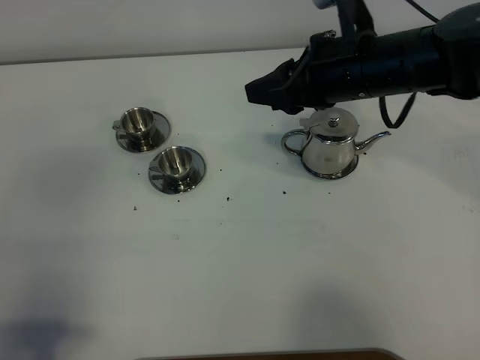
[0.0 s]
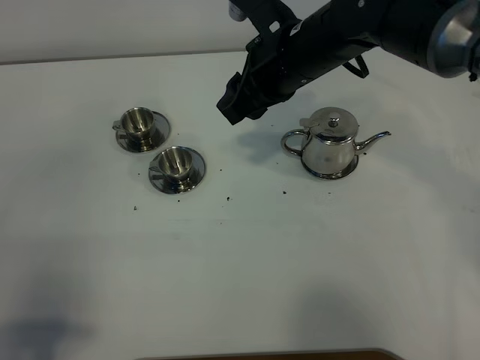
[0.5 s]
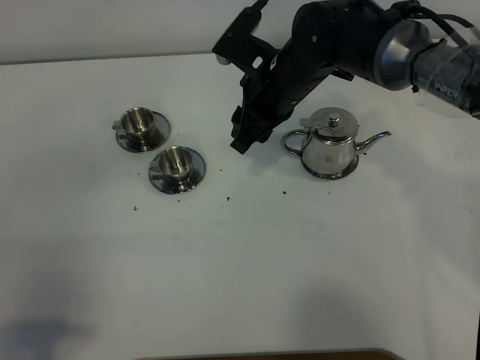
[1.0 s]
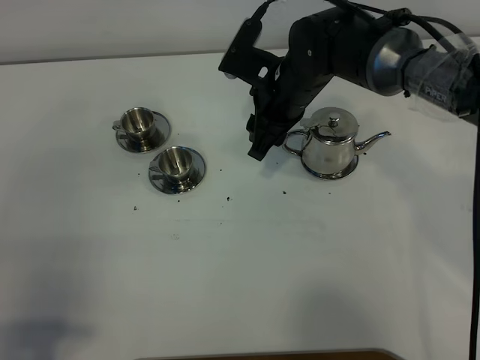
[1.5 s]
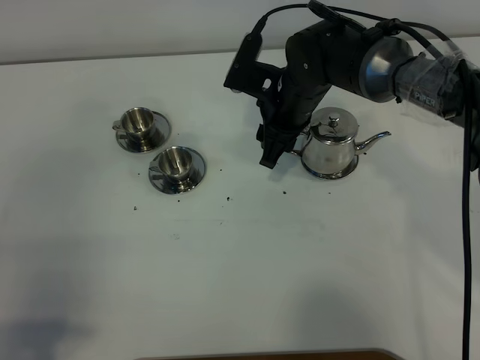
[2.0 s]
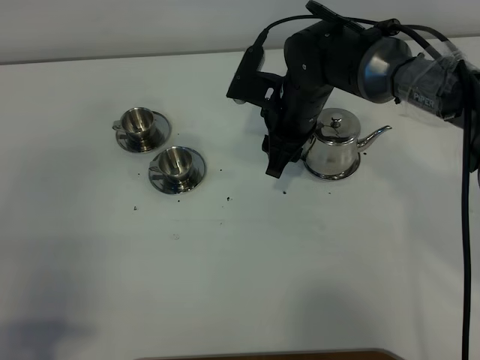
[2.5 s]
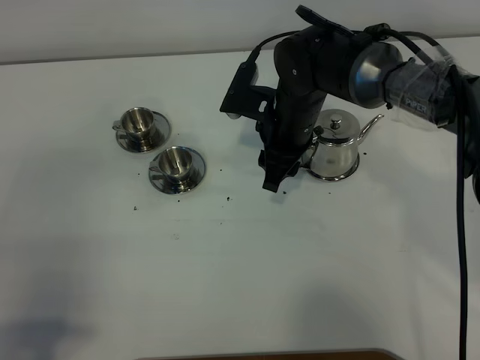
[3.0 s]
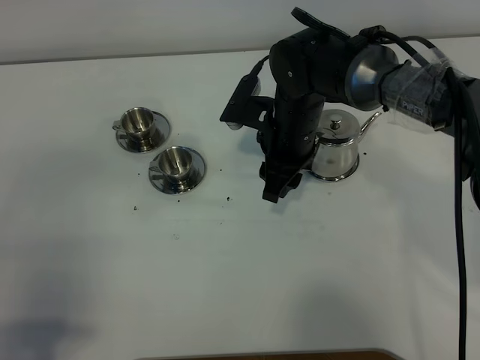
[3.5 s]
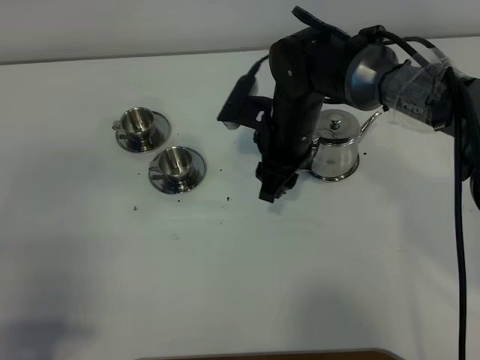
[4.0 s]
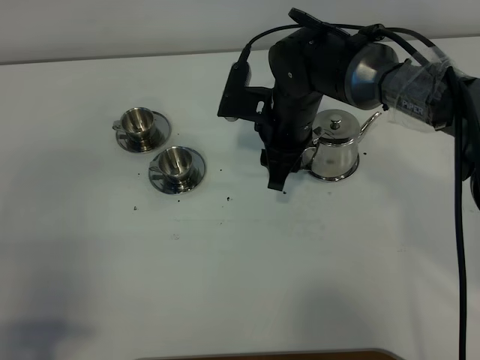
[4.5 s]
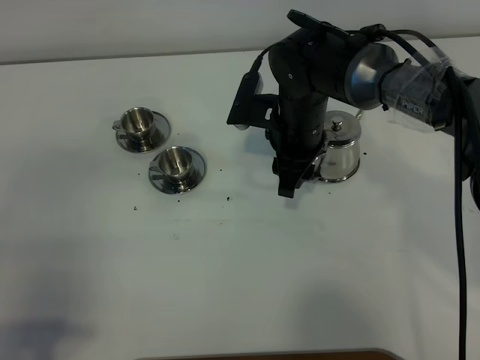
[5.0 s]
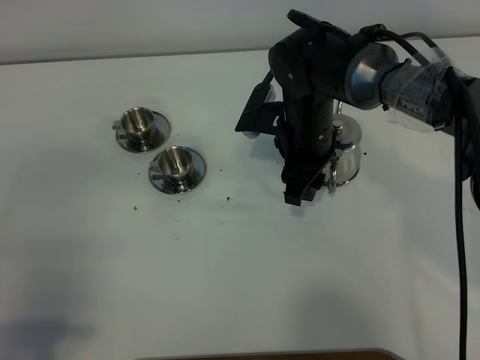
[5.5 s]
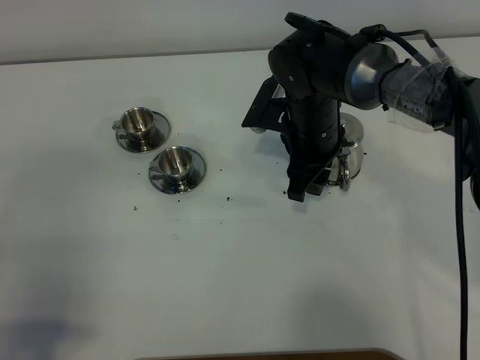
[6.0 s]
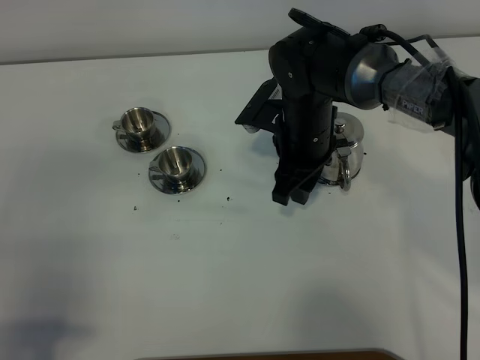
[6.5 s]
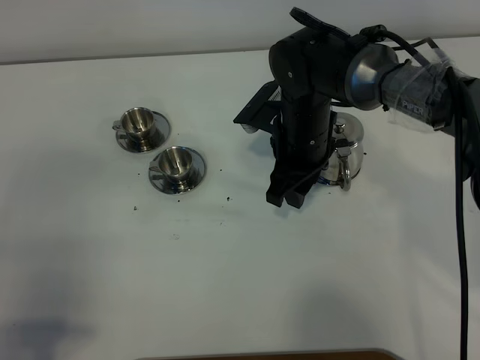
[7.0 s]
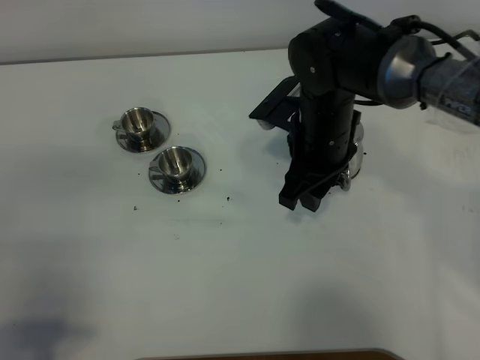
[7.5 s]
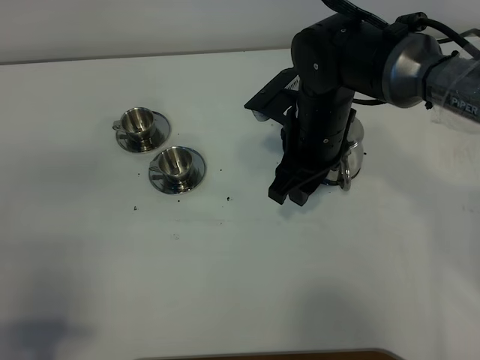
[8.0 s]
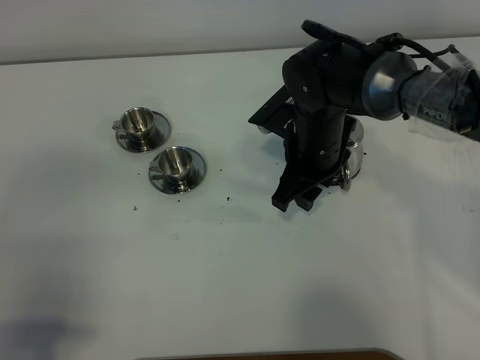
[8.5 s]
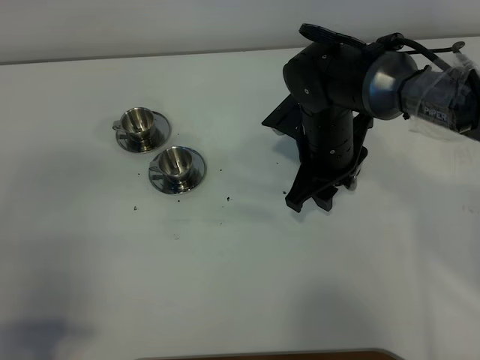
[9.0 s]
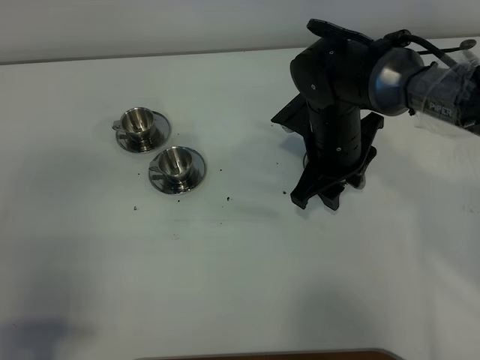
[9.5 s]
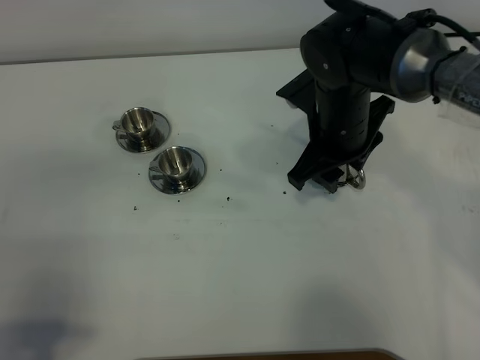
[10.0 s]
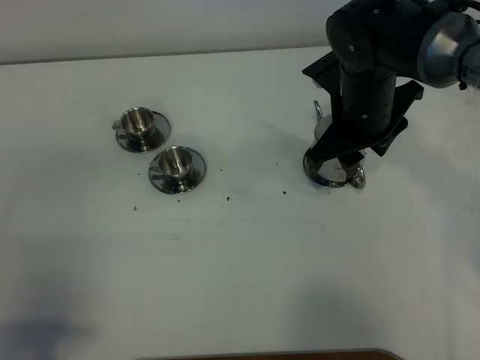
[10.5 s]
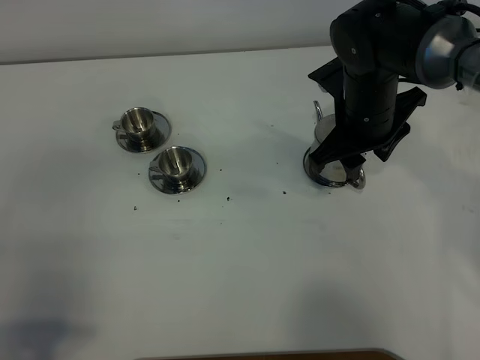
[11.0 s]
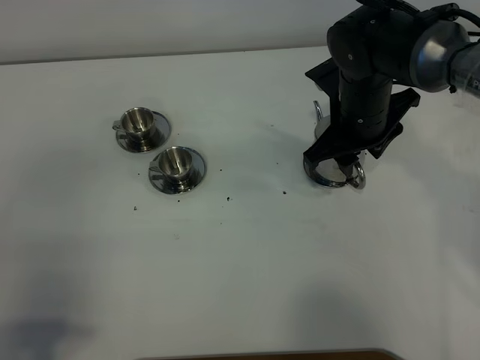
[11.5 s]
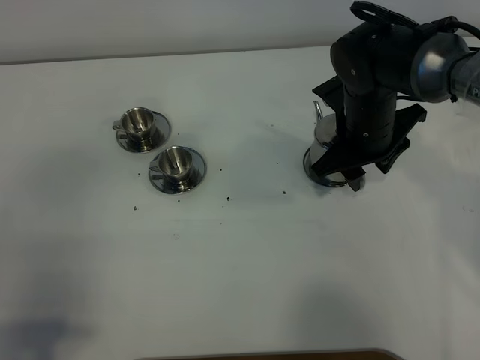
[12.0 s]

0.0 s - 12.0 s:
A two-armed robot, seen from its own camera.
Task of the whole recording: grasp the stainless steel teapot and pour the tea into the two stainless steel teacups one by one, put the stainless steel teapot back in its original place.
0.0 s - 2.0 s: The right gripper moves downward, to the left and forward, roughly 15 cm.
4.0 s - 6.0 s: The grippers move only a little.
6.0 s - 8.0 s: The grippers move only a little.
8.0 s - 10.0 s: The grippers make only small movements.
10.0 s - 12.0 s: There are only small adjustments of the grippers.

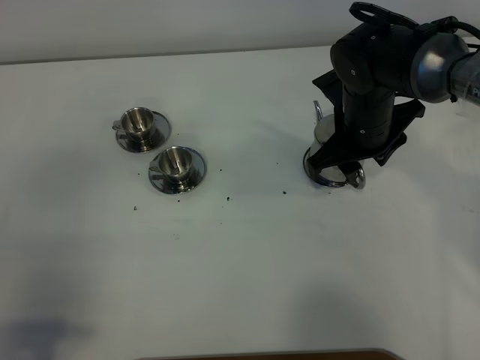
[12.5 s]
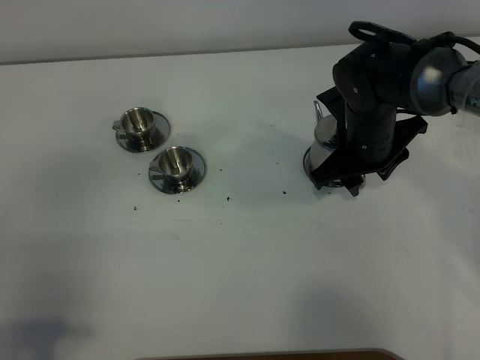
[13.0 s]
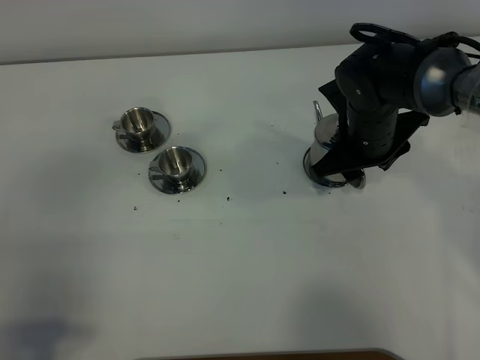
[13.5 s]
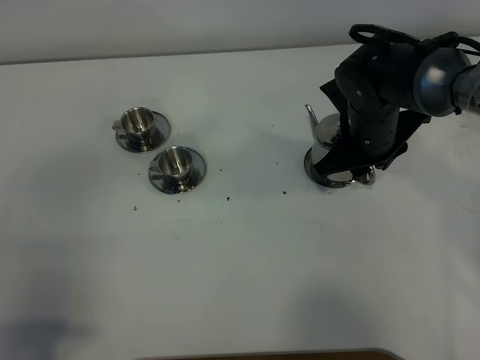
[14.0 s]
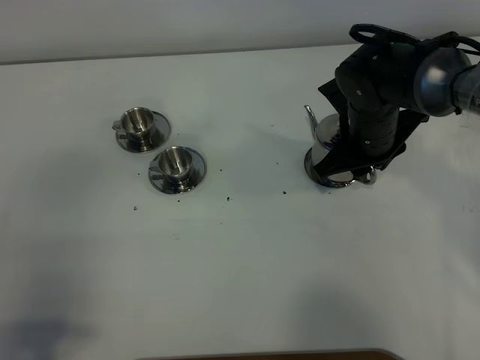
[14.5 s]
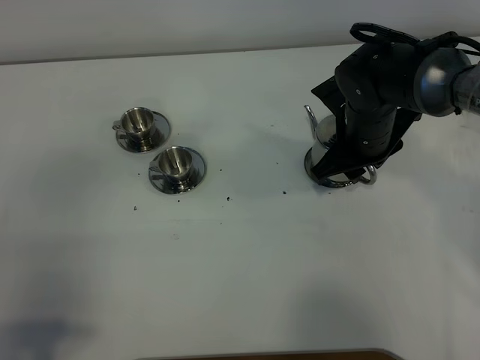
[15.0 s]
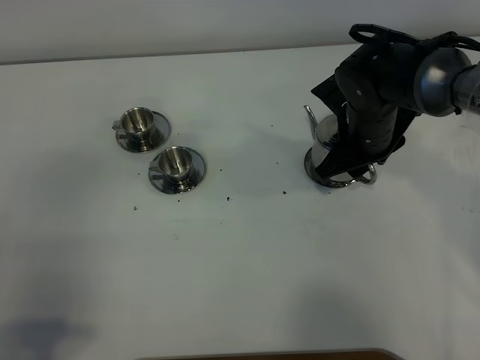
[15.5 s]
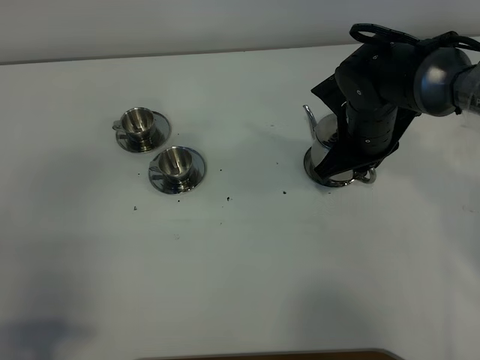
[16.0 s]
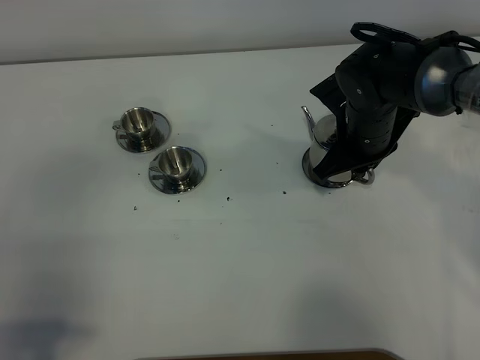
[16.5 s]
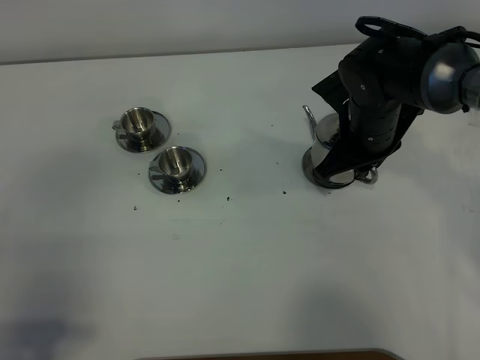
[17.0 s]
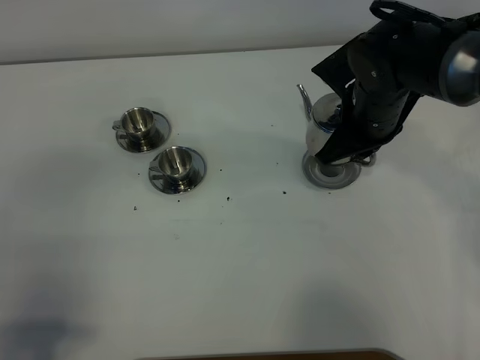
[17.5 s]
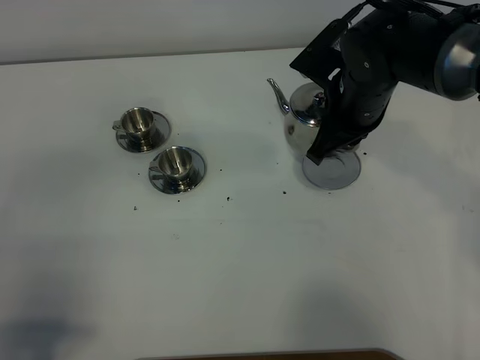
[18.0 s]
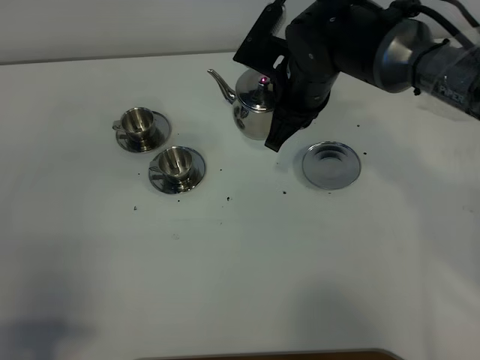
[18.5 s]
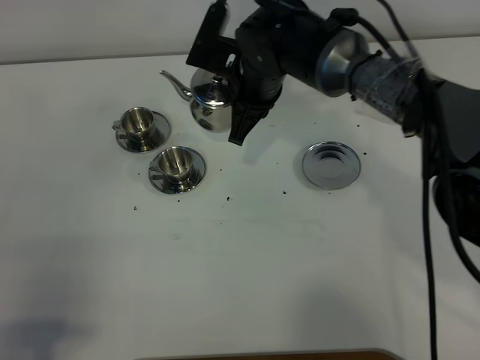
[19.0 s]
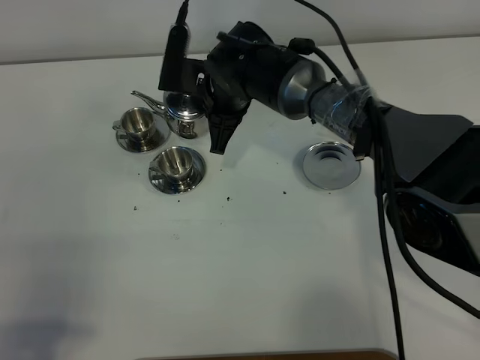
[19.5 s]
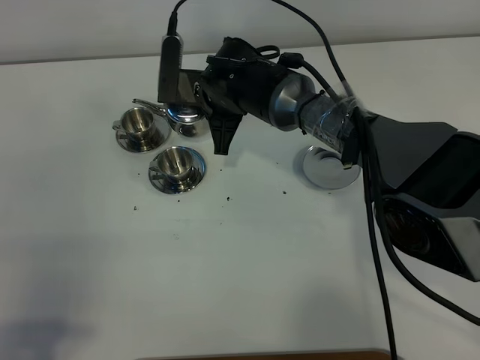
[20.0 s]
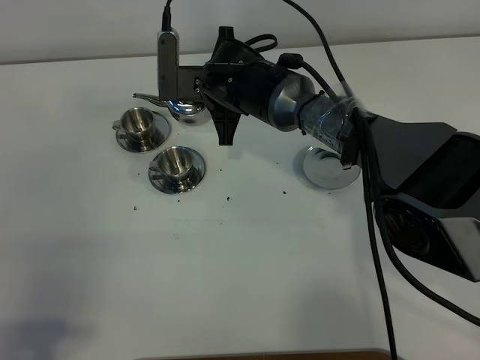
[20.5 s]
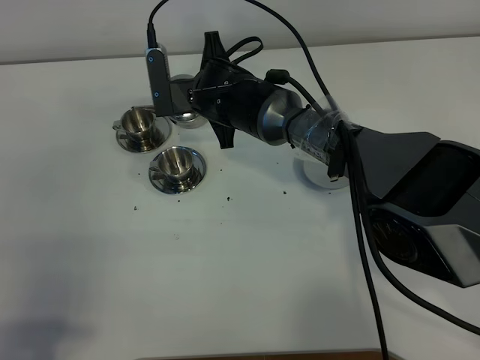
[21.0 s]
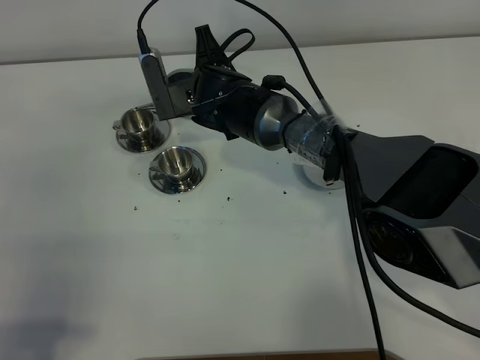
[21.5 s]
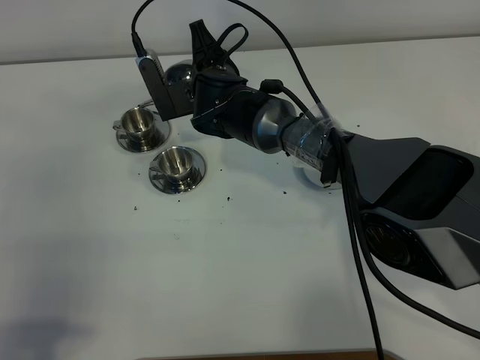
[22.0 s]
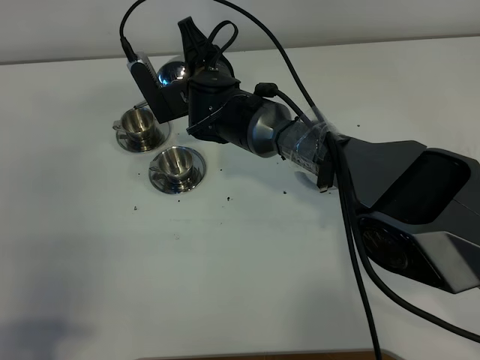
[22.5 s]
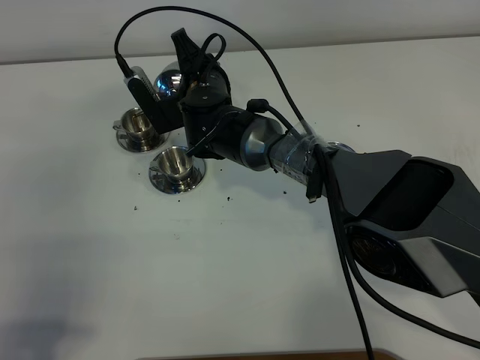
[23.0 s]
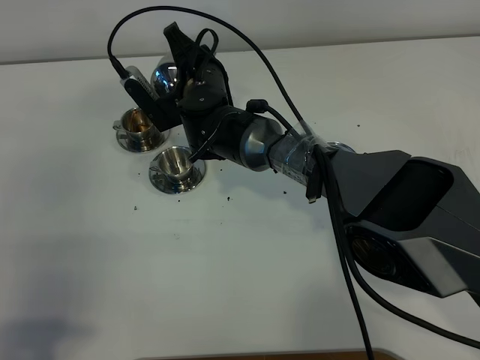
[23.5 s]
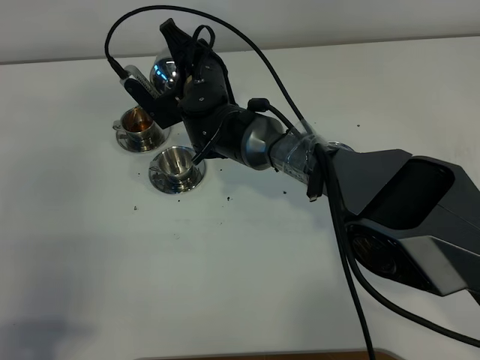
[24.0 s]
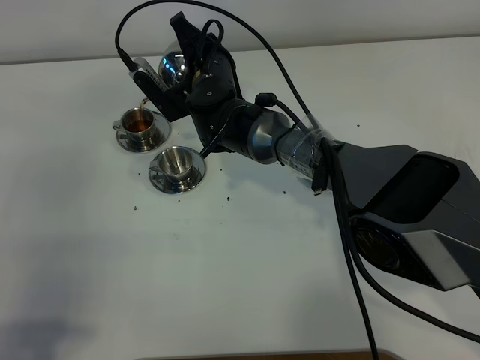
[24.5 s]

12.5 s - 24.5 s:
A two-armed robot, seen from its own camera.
Task of the whole recording: grasp the stainless steel teapot and pour the tea into the two stainless steel teacups one by one, put the stainless steel teapot back in its original place.
Step, 12.5 s - 17.5 s: Pick up the teapot with the right gripper.
12.5 s - 14.5 s: The right gripper closes.
14.5 s - 16.5 s: The right gripper closes.
16.5 s - 18.5 s: The right gripper moves to the left and upward, about 10 cm.
18.5 s - 20.5 s: The right gripper moves to the left, about 10 cm.
22.5 s - 24.5 s: The grippers move only a little.

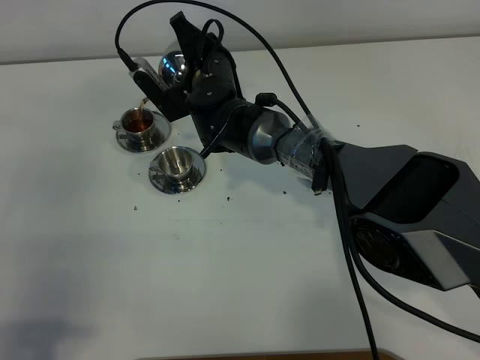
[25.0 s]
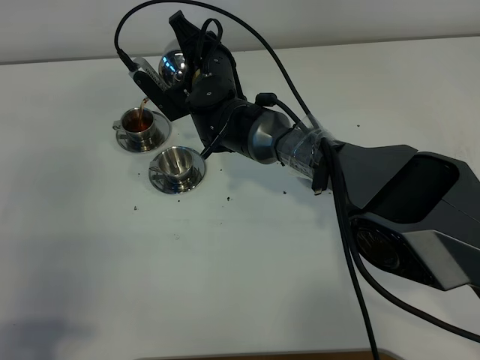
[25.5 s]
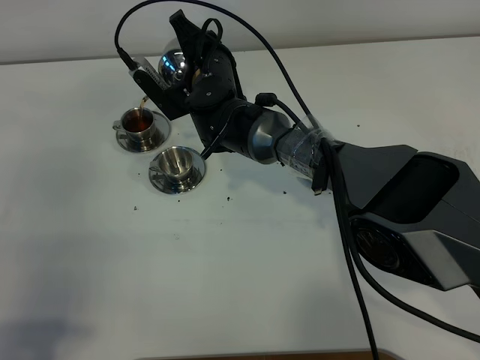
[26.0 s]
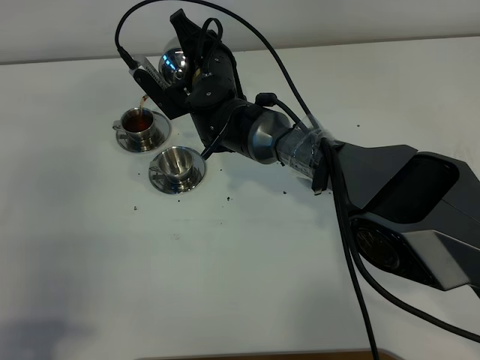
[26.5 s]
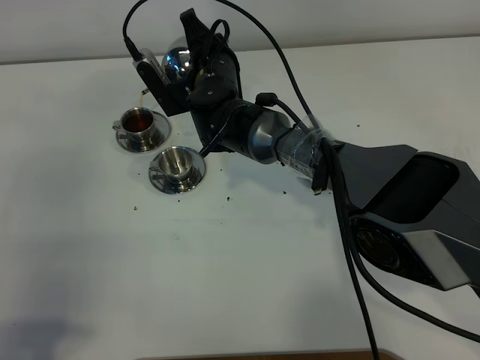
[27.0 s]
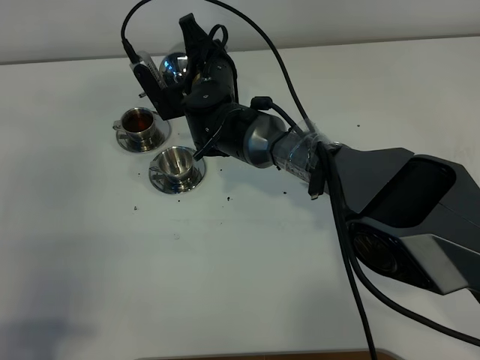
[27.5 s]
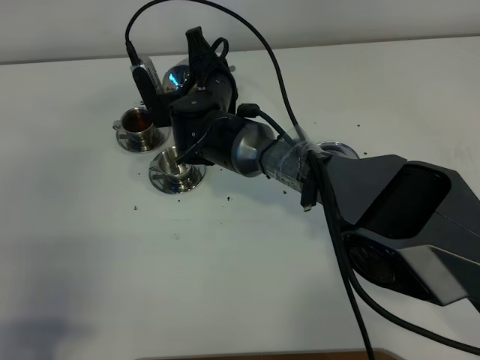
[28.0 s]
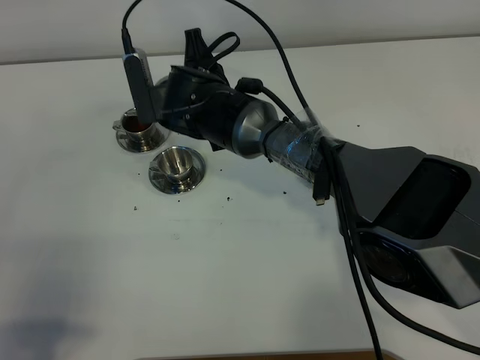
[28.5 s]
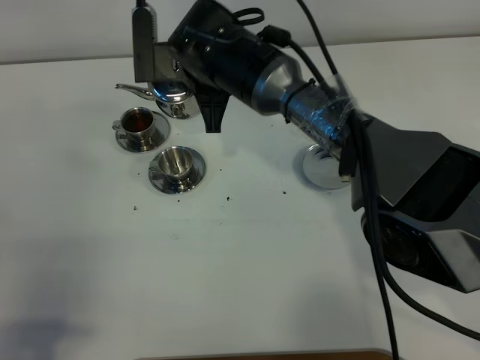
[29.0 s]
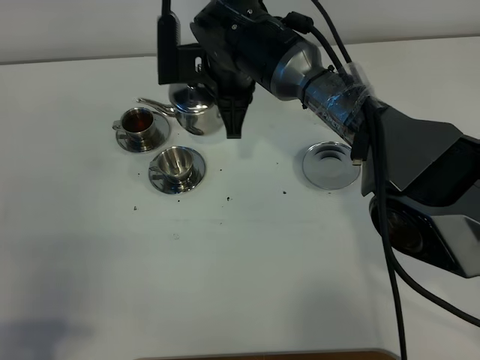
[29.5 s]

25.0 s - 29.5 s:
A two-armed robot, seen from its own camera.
Task of the whole recording: grasp the stainless steel teapot and pour the tea into the two stainless steel teacups one by one, put the stainless steel teapot back in its original place.
25.0 s - 27.0 s: The grippers stay close to where they were, moving slightly.
27.0 s - 29.5 s: The right gripper moves upward, roughly 5 cm.
